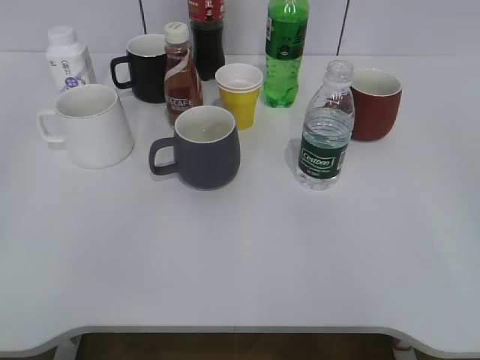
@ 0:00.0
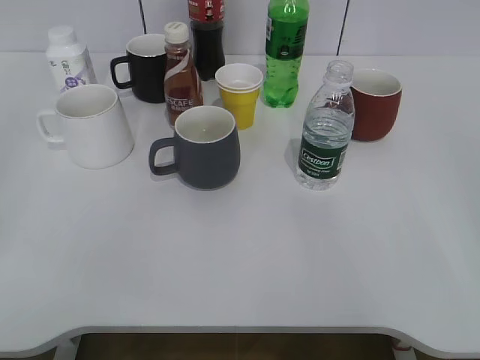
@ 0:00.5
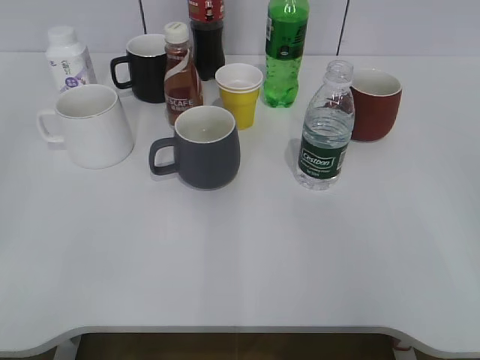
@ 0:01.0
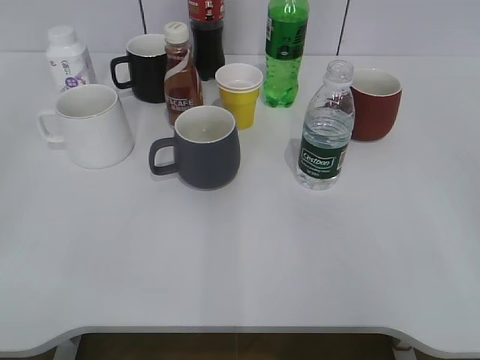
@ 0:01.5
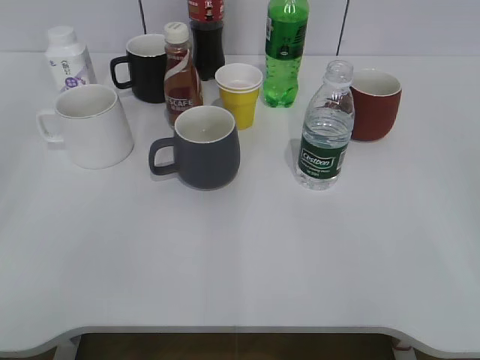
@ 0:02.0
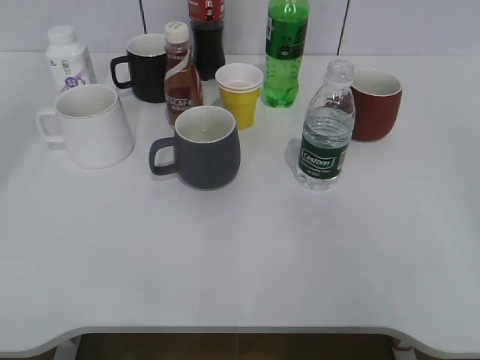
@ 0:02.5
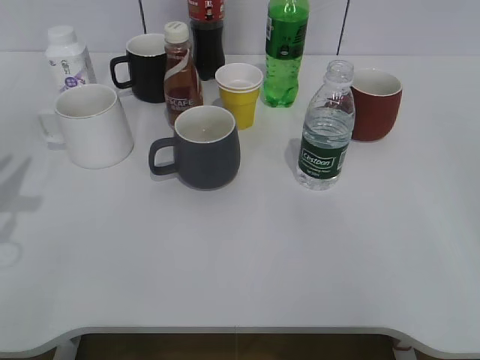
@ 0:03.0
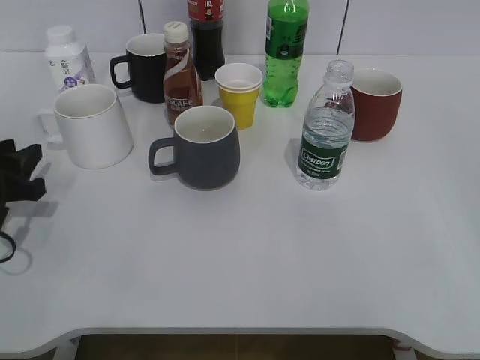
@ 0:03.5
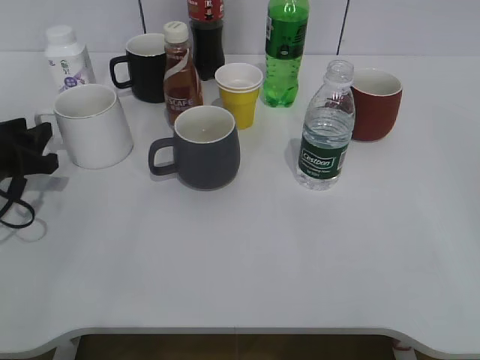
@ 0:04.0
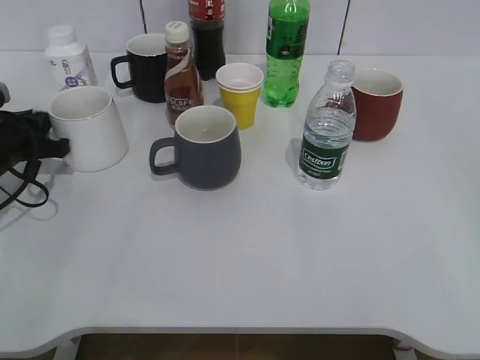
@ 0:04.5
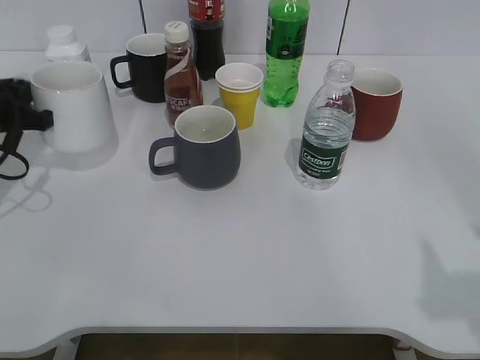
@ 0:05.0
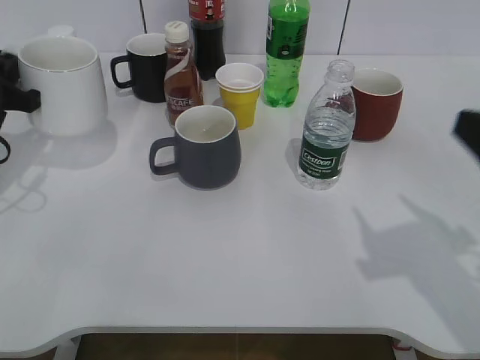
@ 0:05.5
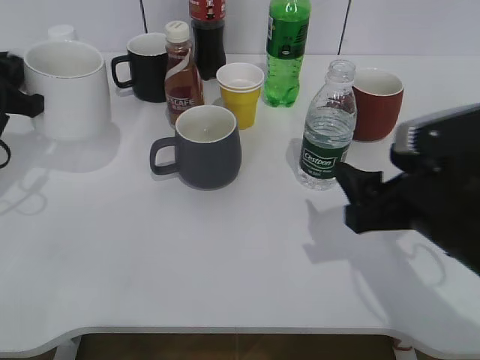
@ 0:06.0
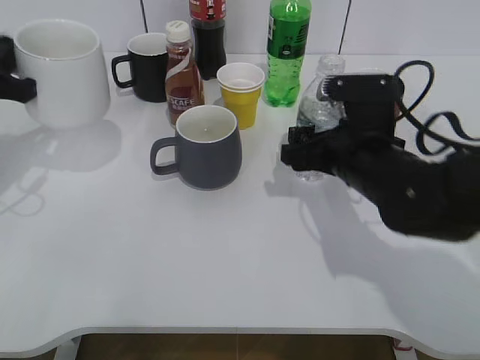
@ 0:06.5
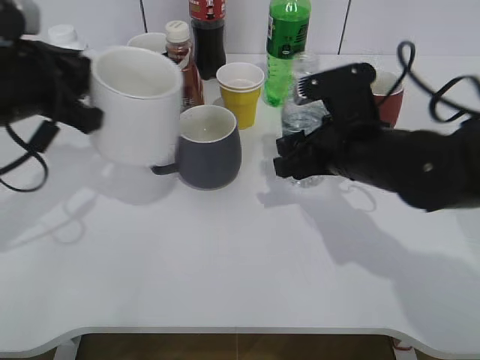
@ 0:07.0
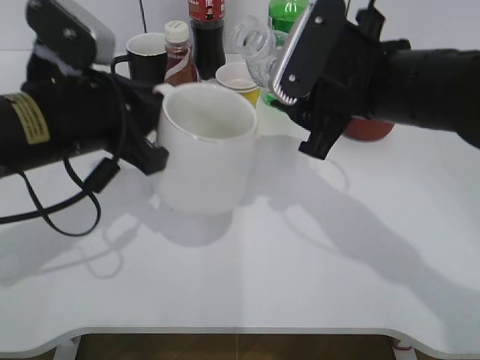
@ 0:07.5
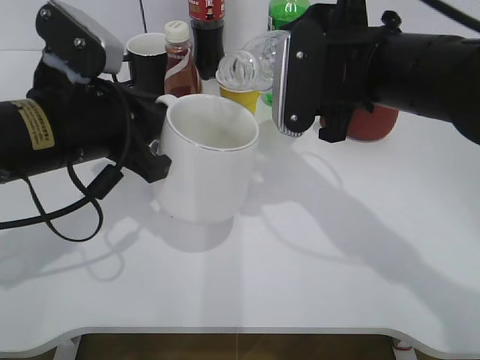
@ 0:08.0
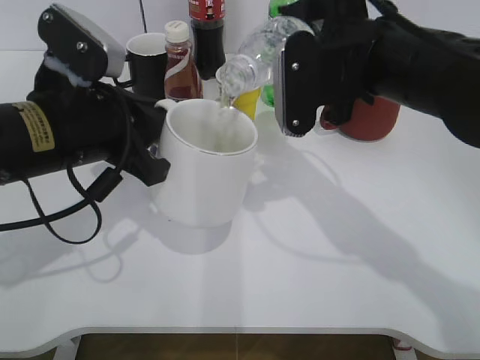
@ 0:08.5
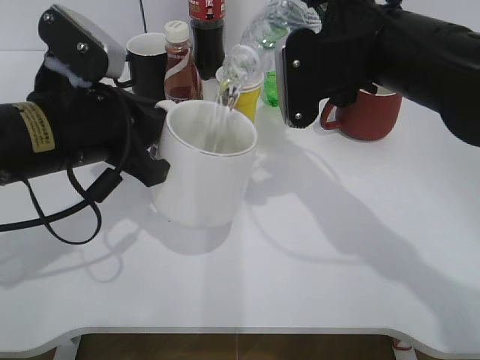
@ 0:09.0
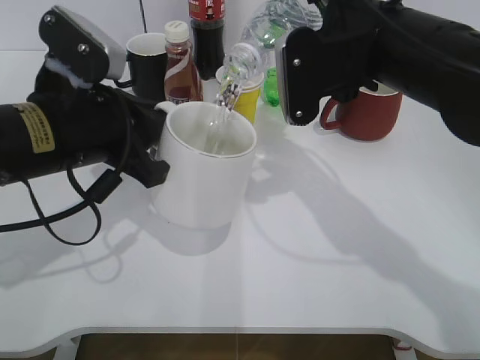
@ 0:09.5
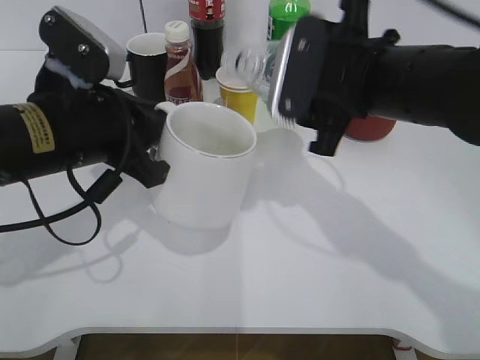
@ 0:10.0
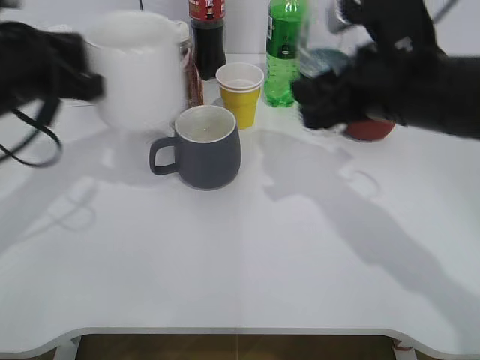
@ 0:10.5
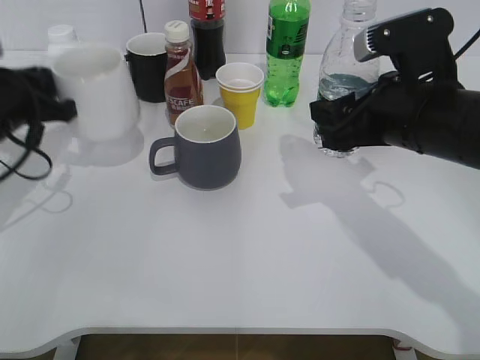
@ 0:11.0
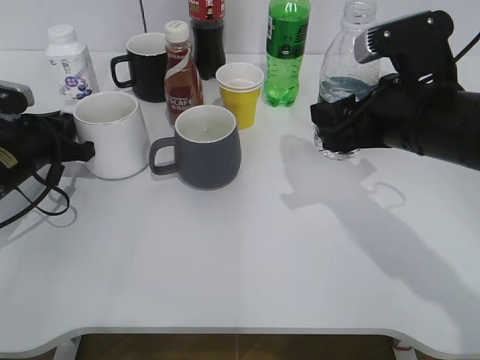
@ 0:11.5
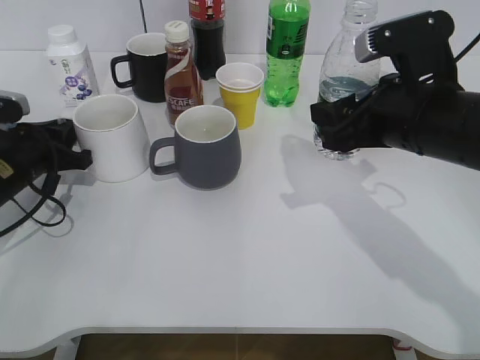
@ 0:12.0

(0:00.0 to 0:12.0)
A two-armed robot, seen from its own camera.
Step, 0:02.0 - 0:04.0: Grasp the white cup with left gripper.
Step, 0:04.5 - 0:06.5: Grasp the bottle with water with right gripper.
Step, 0:07.0 - 0:09.5: Pour the water from bottle to cup with right gripper.
0:02.0 - 0:04.0: The left gripper moves forward and downward, approximately 35 cm.
0:04.0 - 0:06.0: The right gripper is displaced forward, to the left and downward by some 25 cm. Meanwhile the left gripper travels upward by some 10 cm, and closes.
0:06.0 - 0:08.0: The left gripper shifts approximately 15 cm to the right and backward, while the right gripper heads forward, upward and to the left, covering approximately 15 cm, and closes up.
0:10.0 - 0:12.0: The right gripper changes place by approximately 5 cm. Meanwhile the left gripper heads to the left, downward and forward, covering approximately 20 cm.

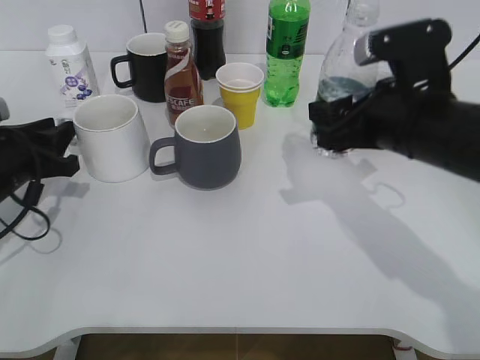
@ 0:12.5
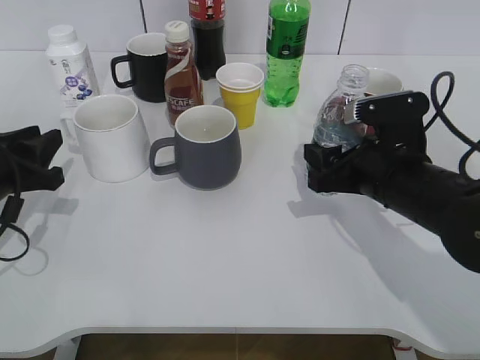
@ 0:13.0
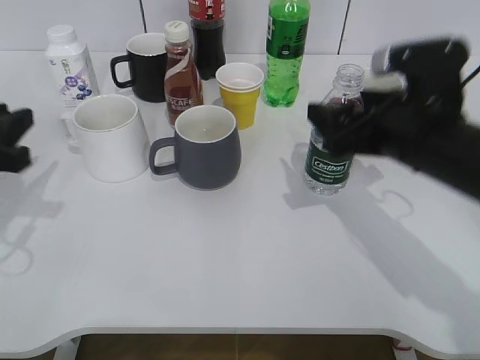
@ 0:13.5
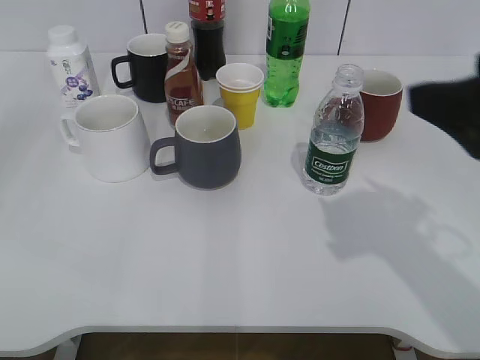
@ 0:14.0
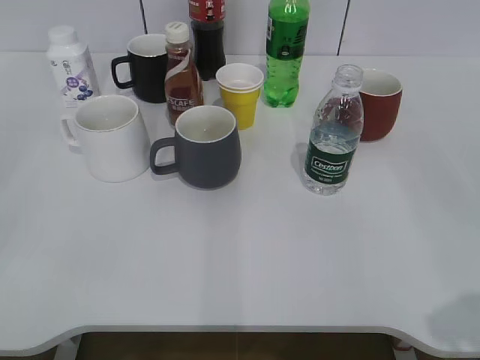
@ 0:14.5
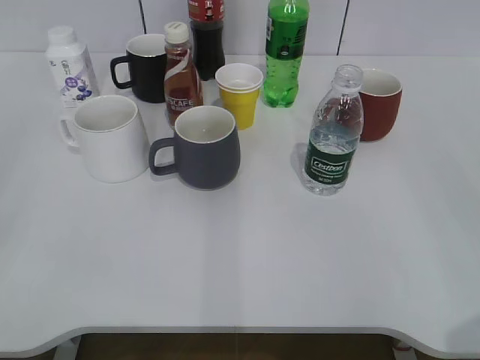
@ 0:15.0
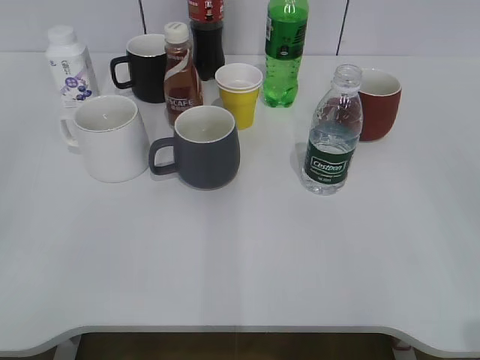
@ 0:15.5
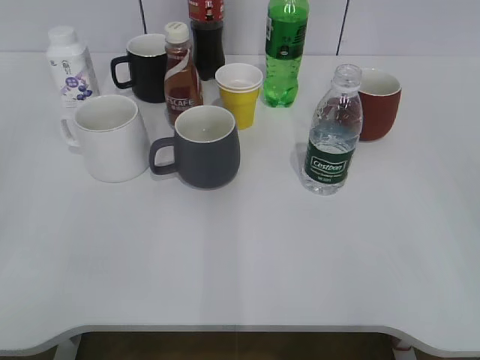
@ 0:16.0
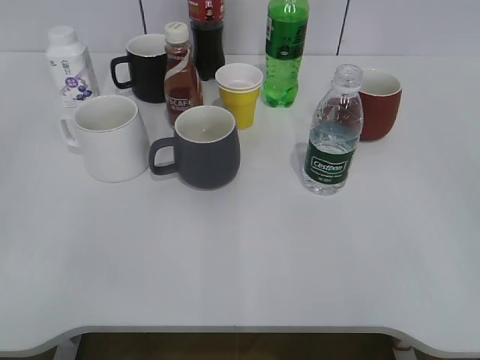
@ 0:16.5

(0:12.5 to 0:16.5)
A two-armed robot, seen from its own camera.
Step, 0:12.5 - 0:13.5: Place the water bottle on the table with right gripper.
0:12.5 - 0:14.5: The right gripper is displaced backward and to the right by about 25 cm, and opens up. Meanwhile the left gripper is displaced backward and upward by approximately 35 cm, and opens its fingers.

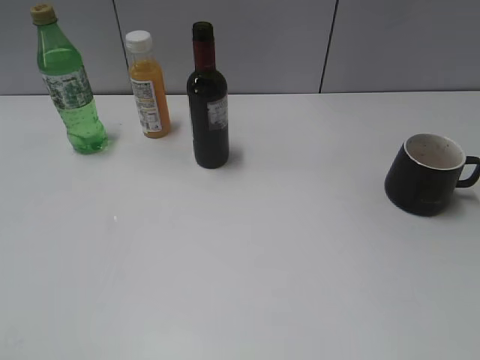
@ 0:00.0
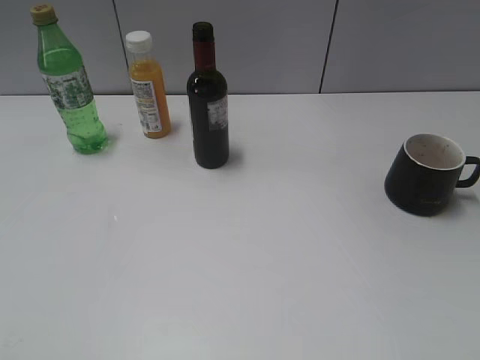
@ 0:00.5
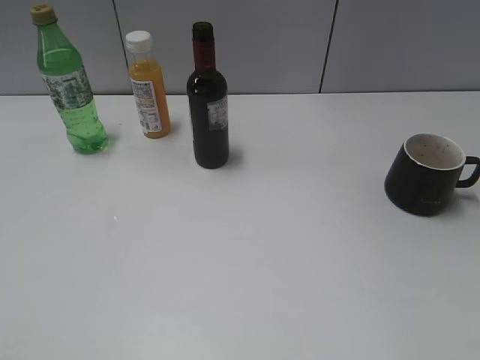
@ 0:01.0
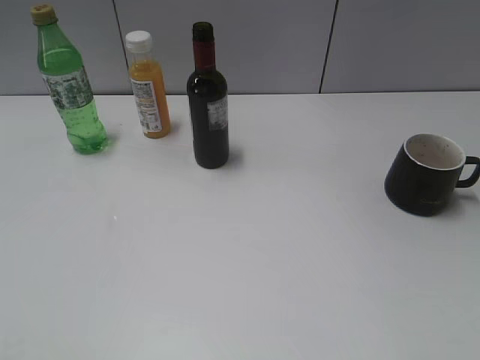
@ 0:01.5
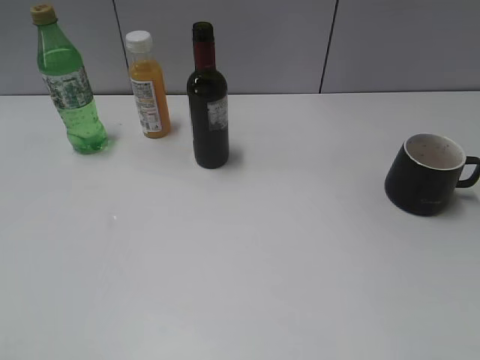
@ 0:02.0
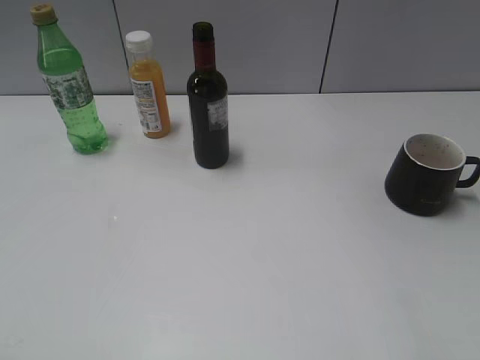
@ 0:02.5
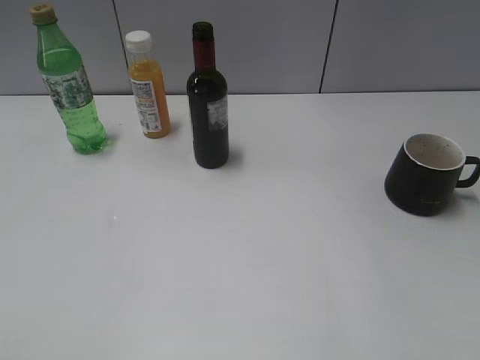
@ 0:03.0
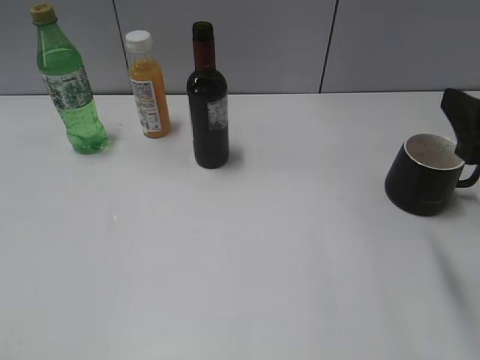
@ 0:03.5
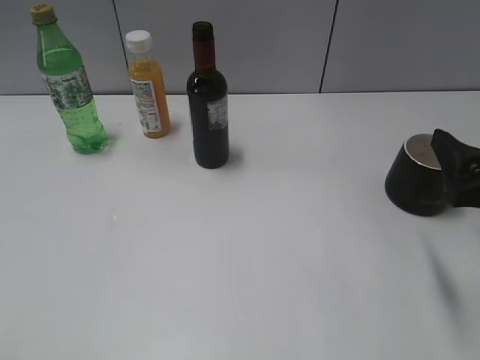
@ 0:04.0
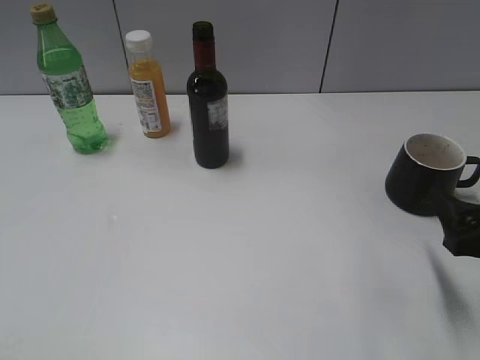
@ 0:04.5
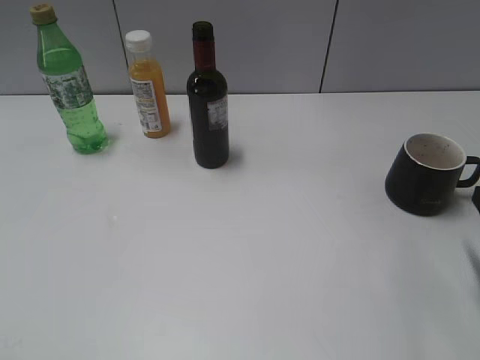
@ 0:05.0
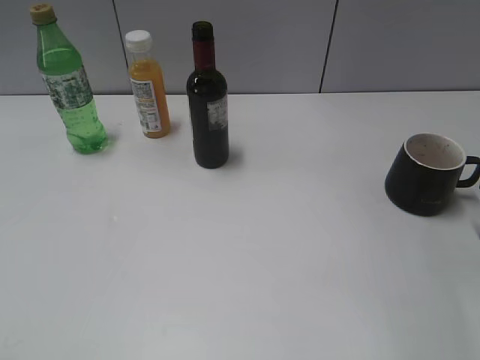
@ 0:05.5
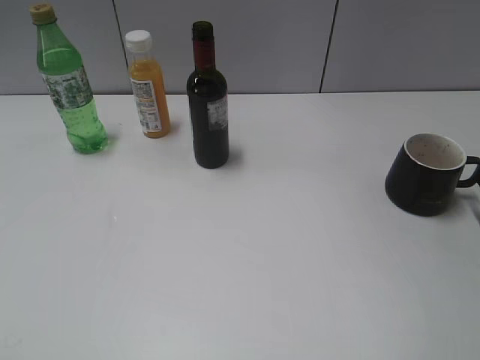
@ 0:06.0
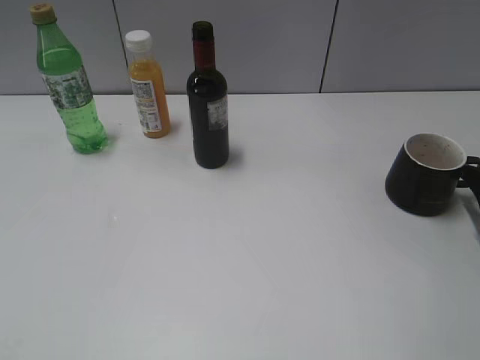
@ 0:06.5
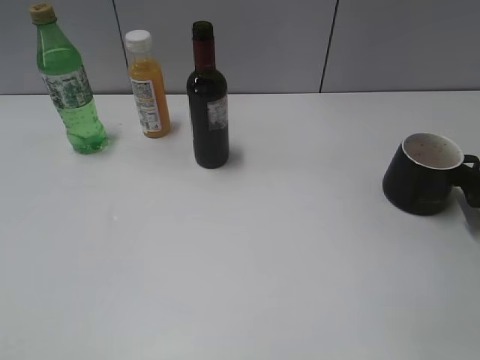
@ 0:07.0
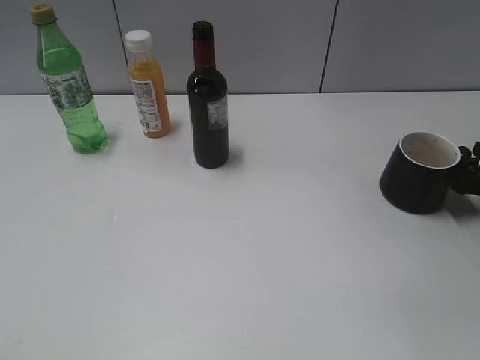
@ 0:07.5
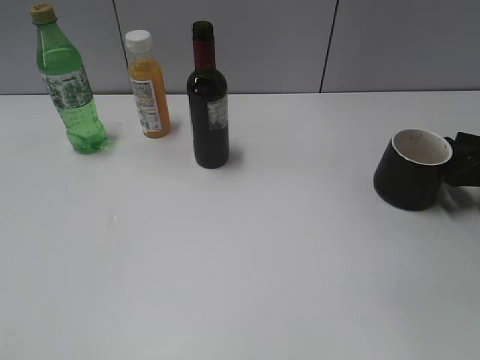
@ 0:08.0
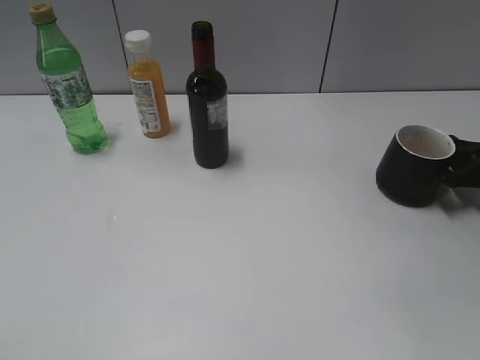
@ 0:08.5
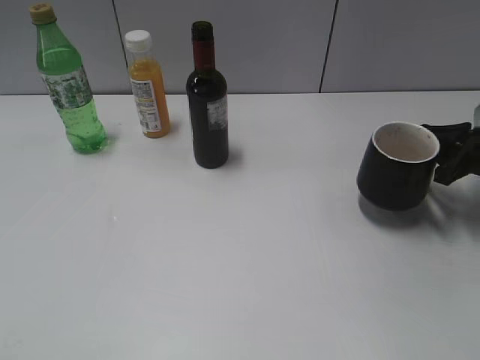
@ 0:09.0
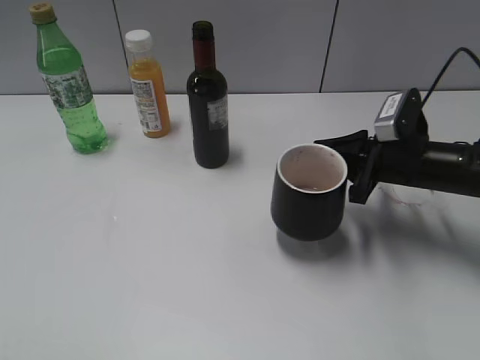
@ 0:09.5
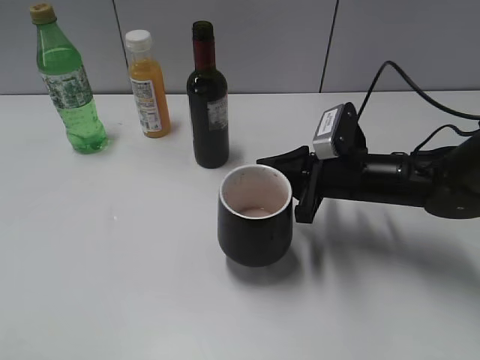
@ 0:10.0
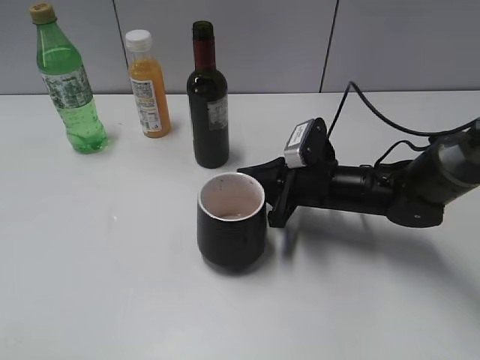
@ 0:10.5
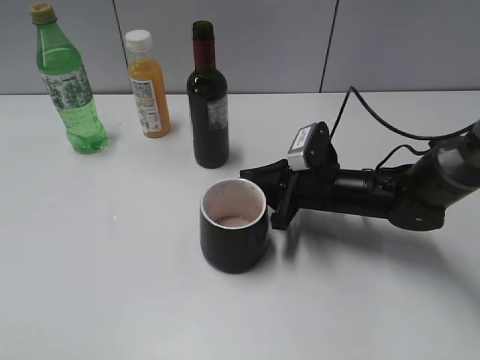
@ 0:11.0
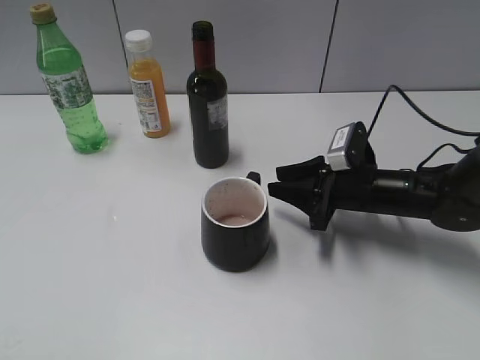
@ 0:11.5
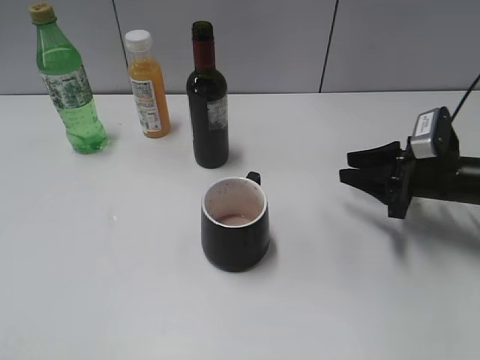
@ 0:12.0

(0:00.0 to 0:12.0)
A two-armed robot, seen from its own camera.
Step, 0:03.5 - 0:08.5: Grasp the black cup with right gripper.
Step, 0:09.0 - 0:11.0: Place the black cup in the center of view with right gripper.
0:02.0 - 0:04.0: The right gripper is displaced forward and downward by about 20 cm.
0:04.0 - 0:06.0: The right gripper is displaced to the right, downward and forward by about 15 cm.
0:06.0 - 0:08.0: The right gripper heads forward, covering about 10 cm, and closes up.
0:08.0 - 0:10.0: The right gripper moves to the left, some 25 cm, and closes.
0:10.0 - 0:12.0: The right gripper goes roughly 10 cm to the right, and opens.
